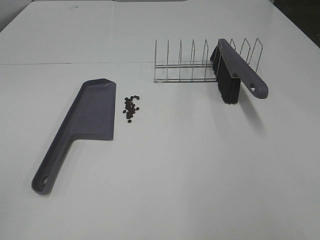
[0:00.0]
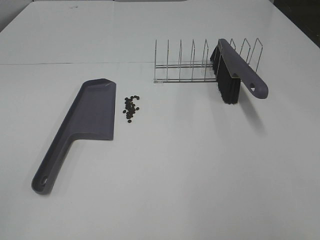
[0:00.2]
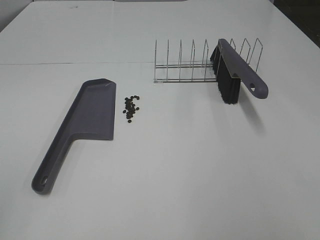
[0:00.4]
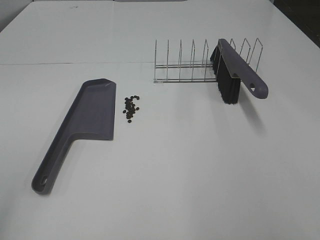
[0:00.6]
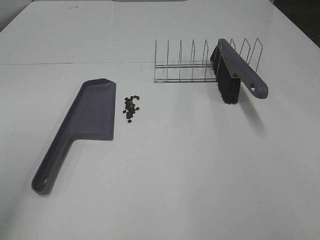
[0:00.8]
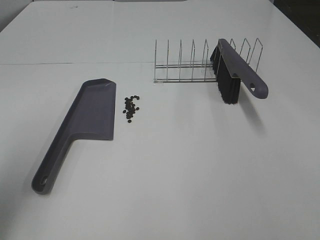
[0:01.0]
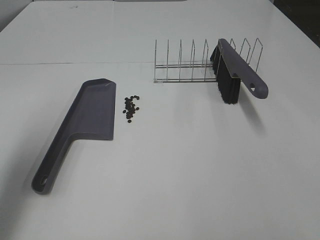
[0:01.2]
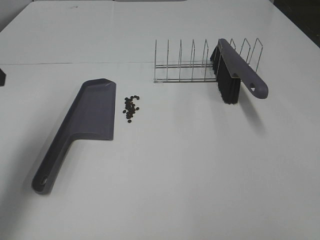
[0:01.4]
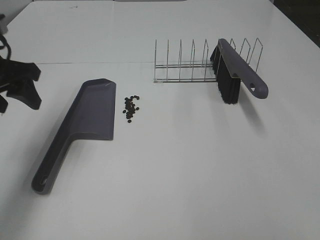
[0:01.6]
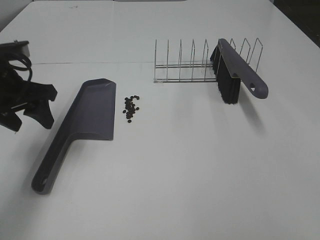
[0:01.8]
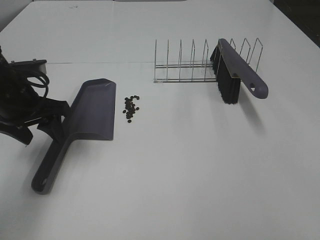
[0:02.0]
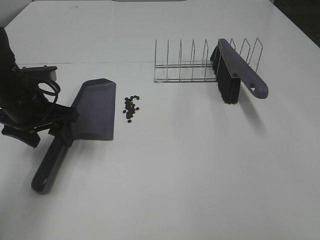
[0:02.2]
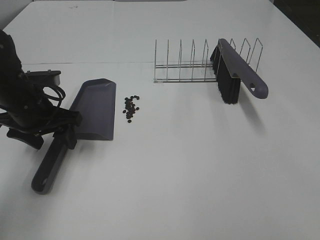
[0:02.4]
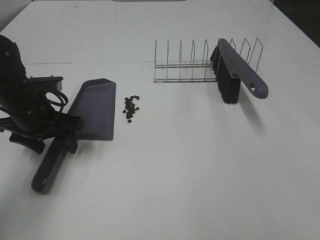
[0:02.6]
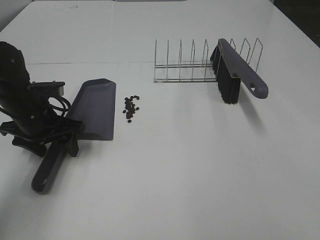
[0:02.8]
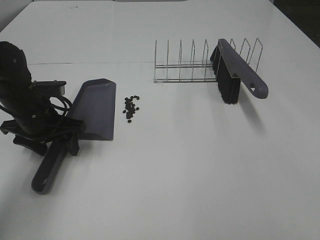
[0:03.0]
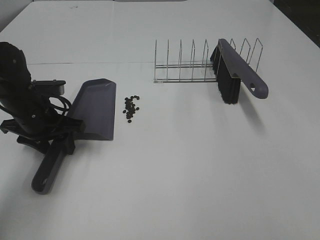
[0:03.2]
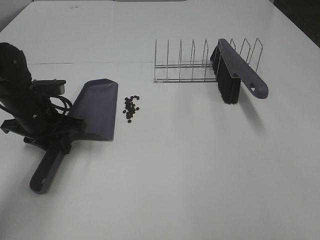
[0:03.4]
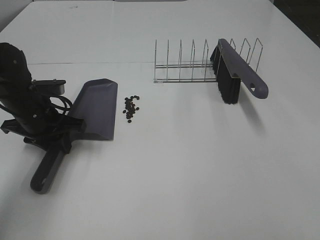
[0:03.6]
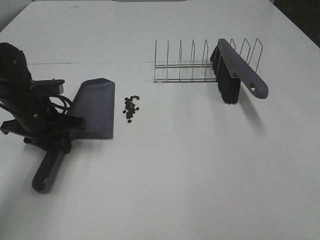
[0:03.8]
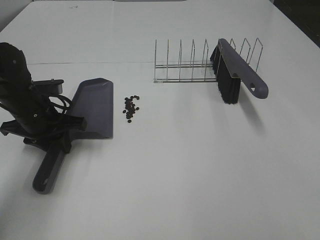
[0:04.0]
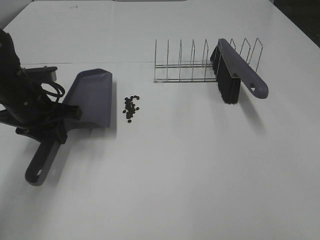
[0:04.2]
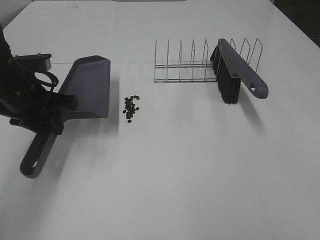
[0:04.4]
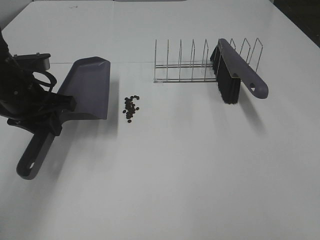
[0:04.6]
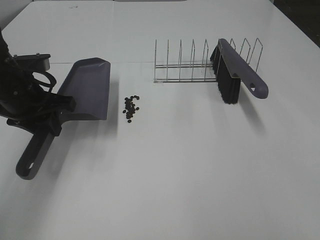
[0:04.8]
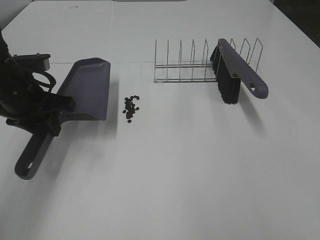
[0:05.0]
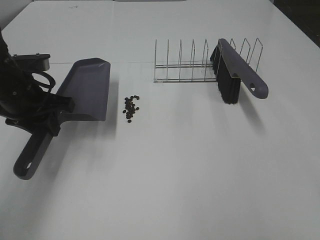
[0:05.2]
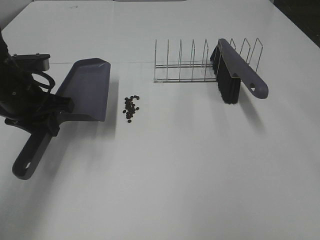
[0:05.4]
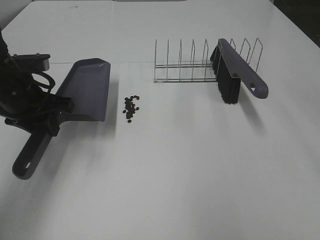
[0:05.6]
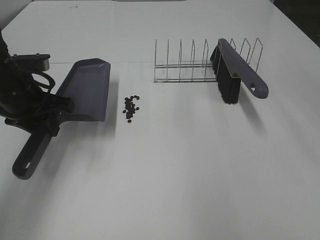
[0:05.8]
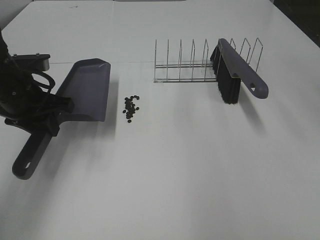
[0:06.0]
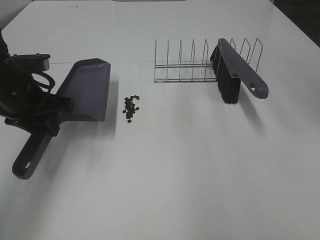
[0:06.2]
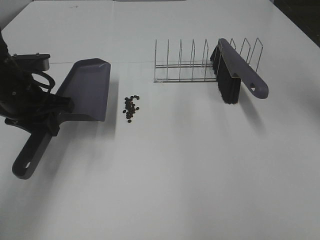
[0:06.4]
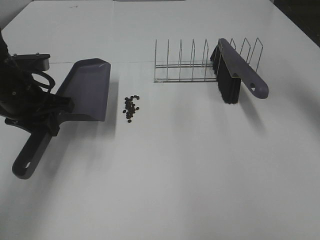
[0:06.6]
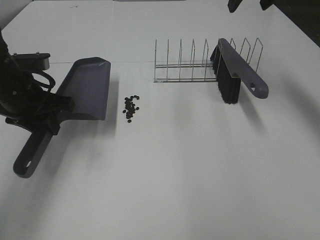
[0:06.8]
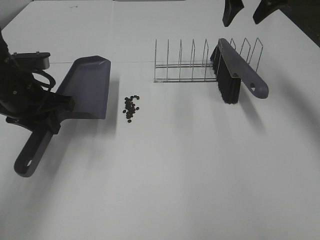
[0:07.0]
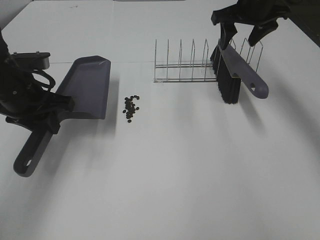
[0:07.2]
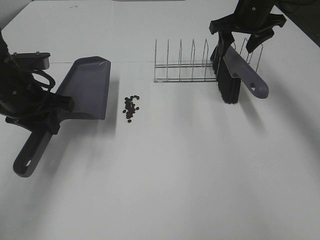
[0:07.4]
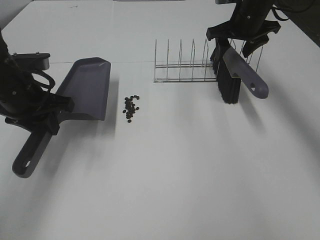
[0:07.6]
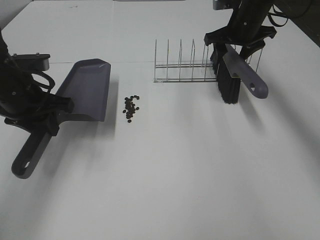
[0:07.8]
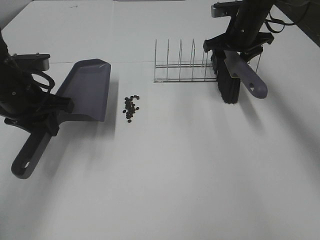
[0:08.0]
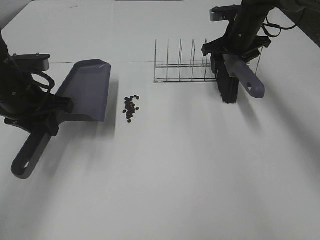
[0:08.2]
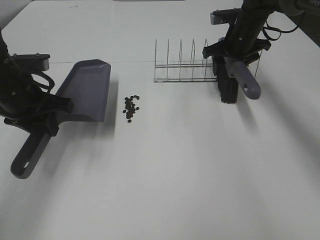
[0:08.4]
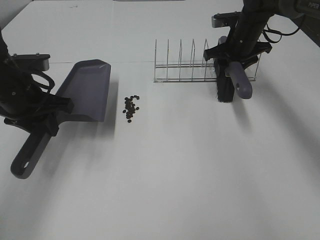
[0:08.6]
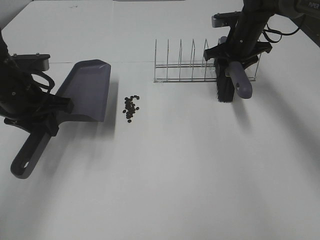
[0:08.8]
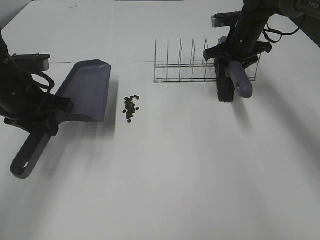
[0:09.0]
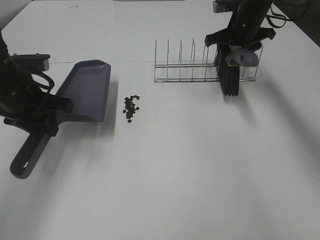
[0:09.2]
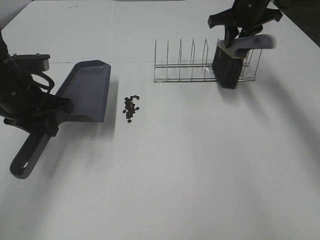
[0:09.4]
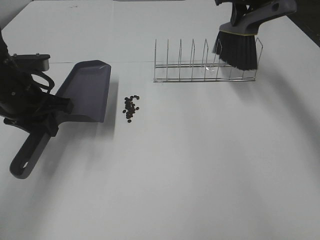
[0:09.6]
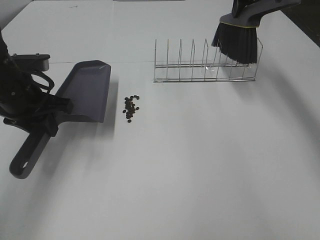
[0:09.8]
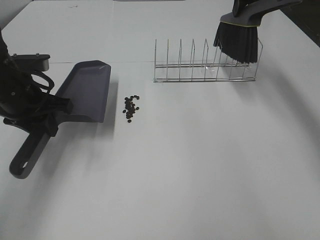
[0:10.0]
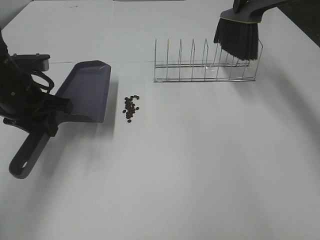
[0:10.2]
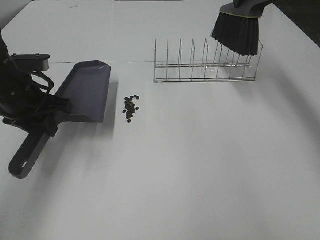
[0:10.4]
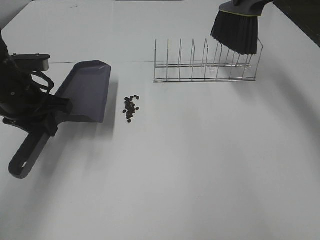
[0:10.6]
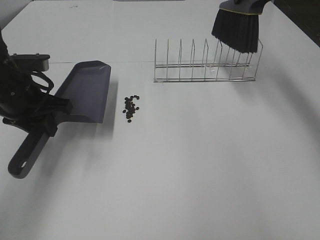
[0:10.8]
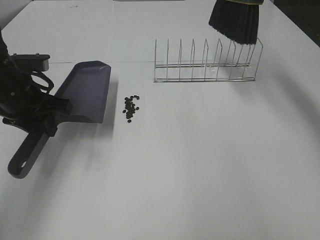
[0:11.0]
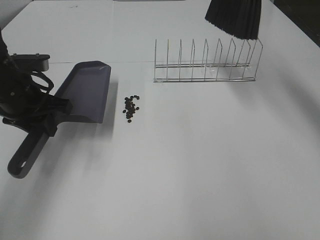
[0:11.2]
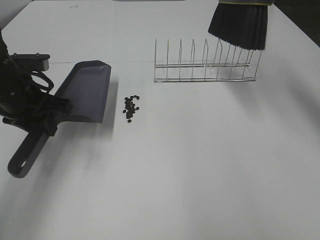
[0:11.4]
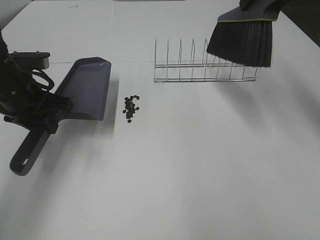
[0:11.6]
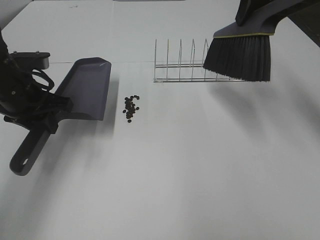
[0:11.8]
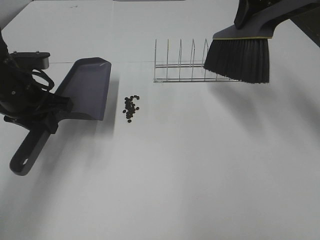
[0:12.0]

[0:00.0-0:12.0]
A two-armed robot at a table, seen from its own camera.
Task of the whole recording: Sweep Coffee Bean.
Step, 0:00.0 to 0:03.4: Left hand: grab the dustpan.
Step, 0:05.0 to 0:08.6: Right hand:grab the broom.
0:00.0 to 0:01.6: The left gripper travels forward by about 30 cm.
0:01.6 to 0:03.0: The left gripper travels downward by about 15 cm.
0:03.0 to 0:04.4: The left gripper moves upward, approximately 5 cm, and closes.
0:06.0 to 0:07.6: The right gripper shifts roughly 30 cm downward and forward.
0:07.6 to 0:09.0: The right gripper shifts about 5 cm downward.
0:09.0 to 0:10.4: The right gripper travels upward by about 15 cm, and closes up.
0:10.4 to 0:12.0: The right gripper shifts about 10 cm backward.

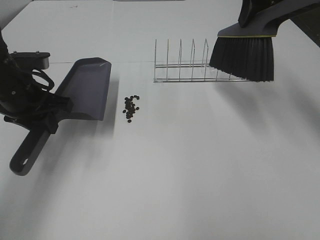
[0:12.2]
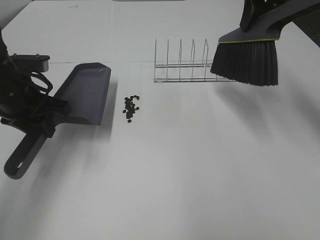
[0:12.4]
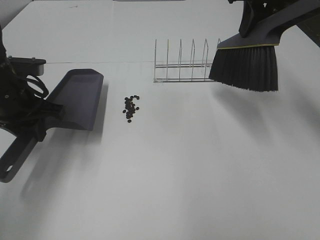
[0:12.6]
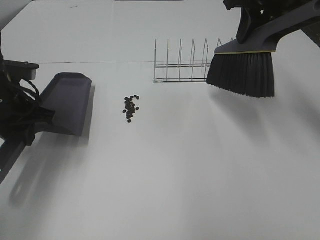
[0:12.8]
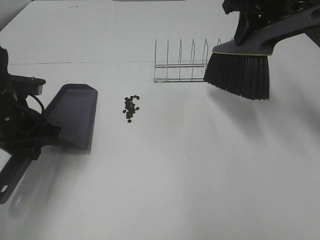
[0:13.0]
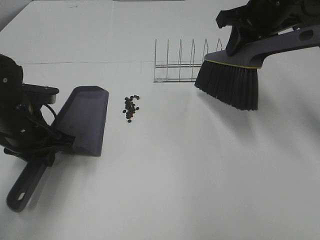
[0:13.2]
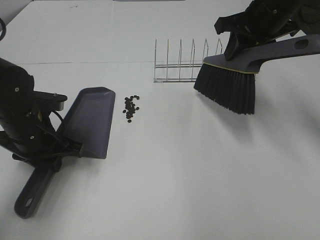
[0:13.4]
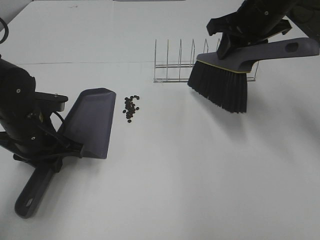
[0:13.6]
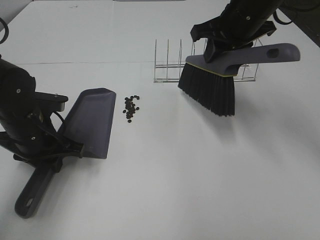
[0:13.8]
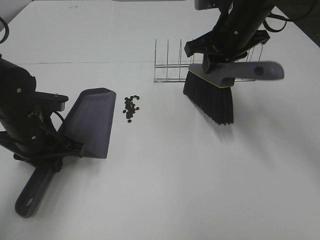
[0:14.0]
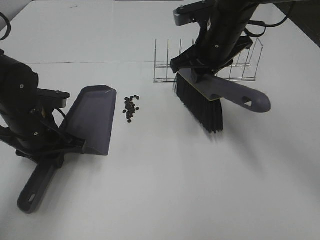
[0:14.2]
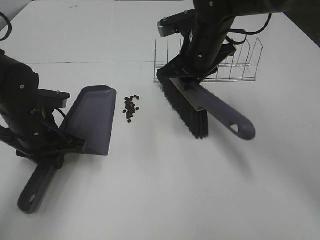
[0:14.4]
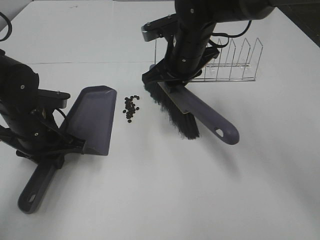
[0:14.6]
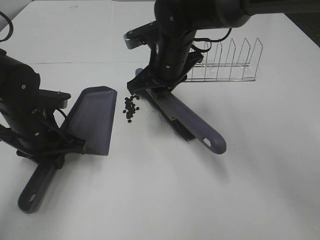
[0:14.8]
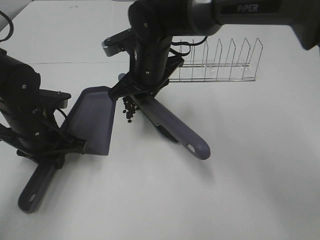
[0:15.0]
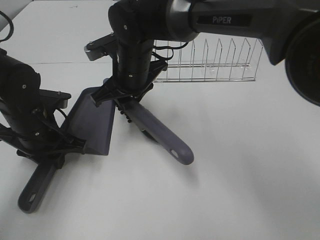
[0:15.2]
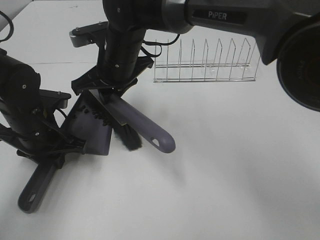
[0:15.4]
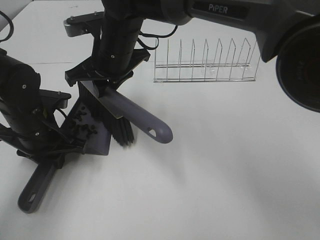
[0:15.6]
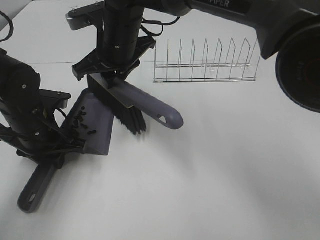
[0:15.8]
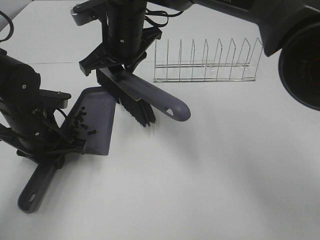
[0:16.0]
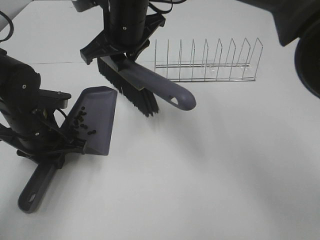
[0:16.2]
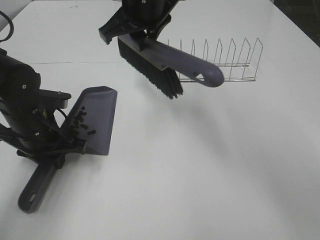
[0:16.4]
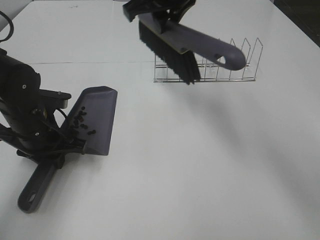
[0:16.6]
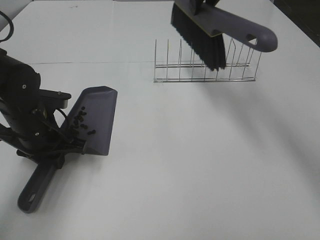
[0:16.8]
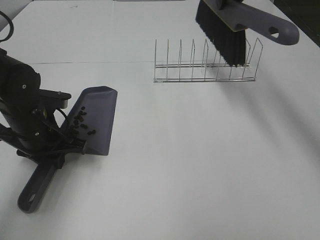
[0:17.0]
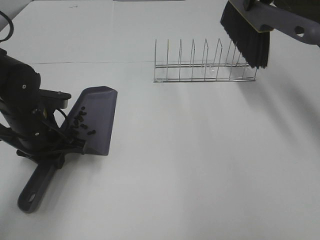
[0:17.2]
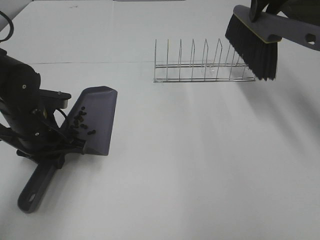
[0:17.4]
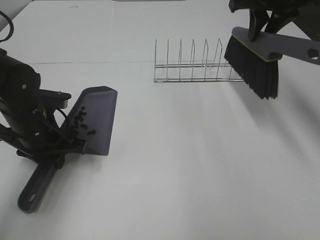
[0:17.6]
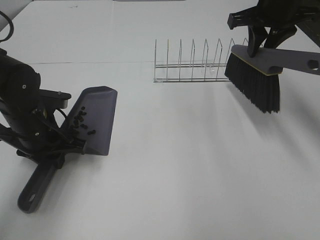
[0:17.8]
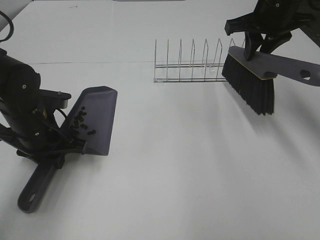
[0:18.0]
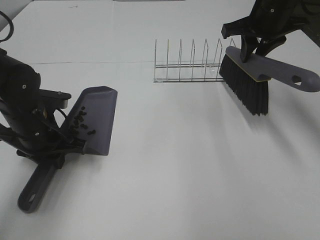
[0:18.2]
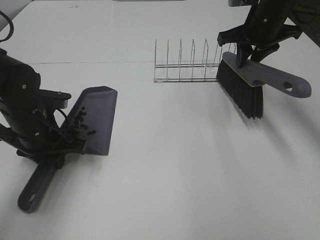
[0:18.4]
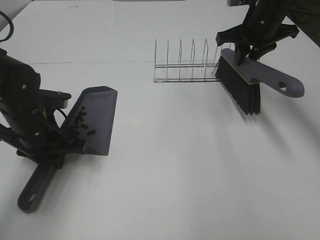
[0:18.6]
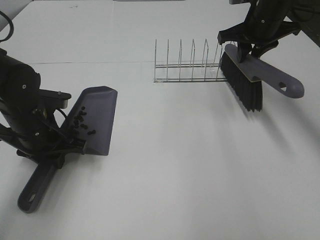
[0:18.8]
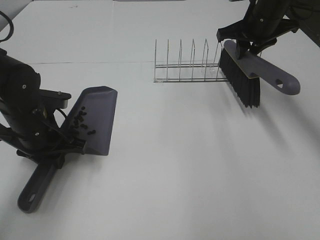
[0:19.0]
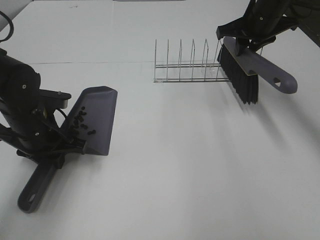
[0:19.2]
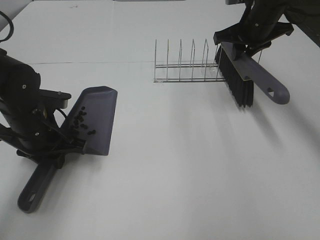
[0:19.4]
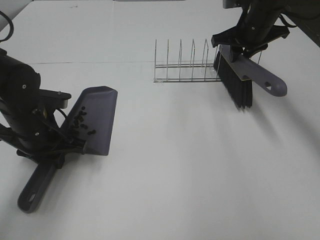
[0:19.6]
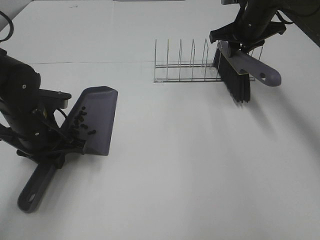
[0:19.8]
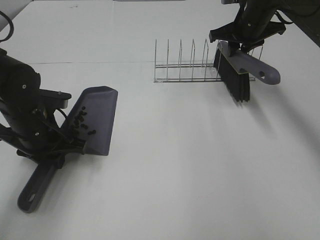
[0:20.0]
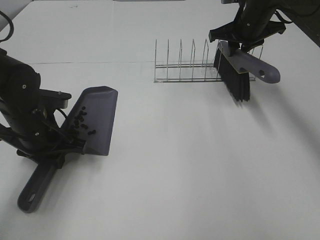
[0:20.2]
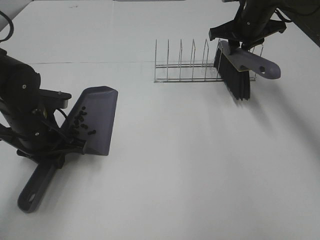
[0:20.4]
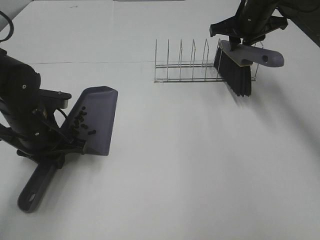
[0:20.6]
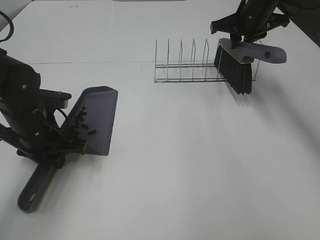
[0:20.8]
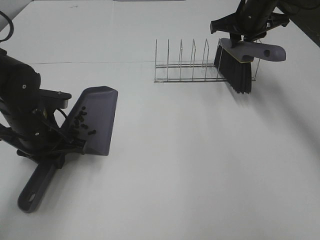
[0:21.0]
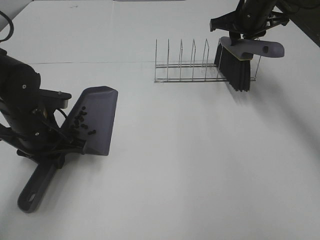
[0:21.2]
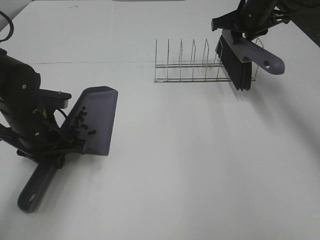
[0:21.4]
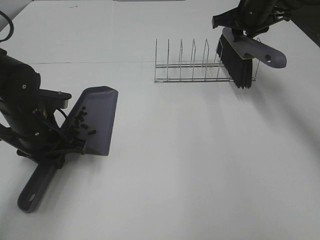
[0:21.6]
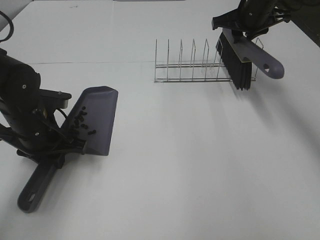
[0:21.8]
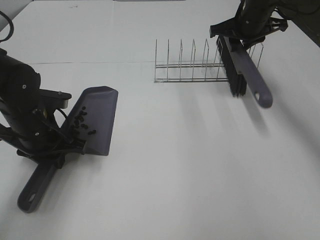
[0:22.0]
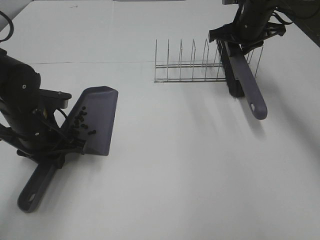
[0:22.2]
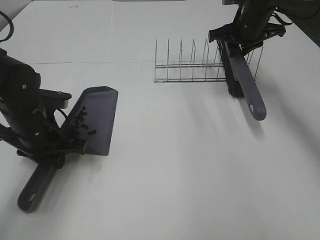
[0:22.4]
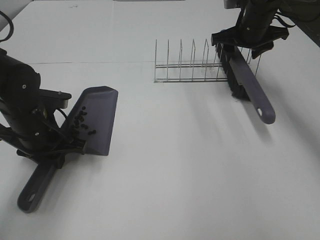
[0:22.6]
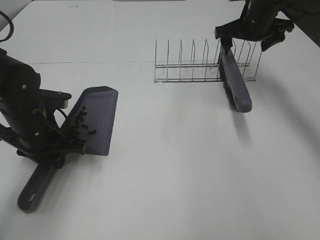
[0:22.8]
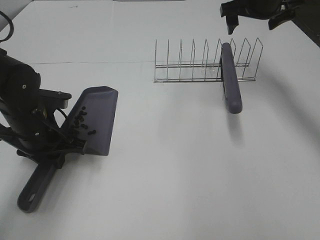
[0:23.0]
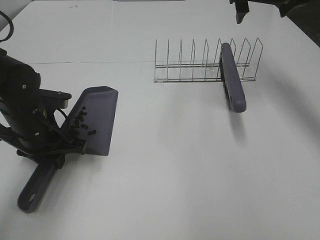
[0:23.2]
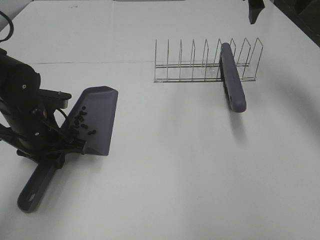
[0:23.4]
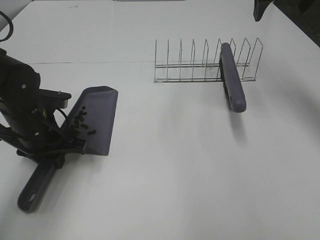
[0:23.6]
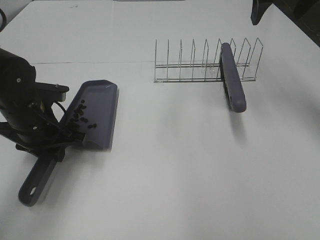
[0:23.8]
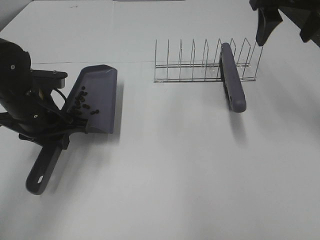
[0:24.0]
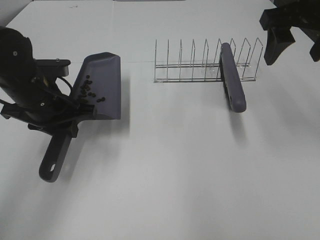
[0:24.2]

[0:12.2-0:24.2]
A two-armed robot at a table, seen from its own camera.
Task of the whole recording: Sweep Coffee Bean.
Step, 0:12.2 to 0:15.8: Right hand:sweep the coffee beans into the dustpan.
Step, 0:16.0 to 0:22.6: Right hand:place the broom on the rack.
0:12.2 to 0:13.8: The two grippers go roughly 5 cm downward.
0:13.8 to 0:15.2: The right gripper goes approximately 20 cm to the left and downward.
0:15.2 to 0:16.6: The right gripper shifts about 15 cm upward and to the right.
0:16.6 to 0:18.2: The right gripper travels to the right by some 20 cm.
0:18.2 to 0:19.8: The right gripper shifts roughly 5 cm forward.
0:19.8 to 0:21.2: The grippers move only a little.
0:21.2 to 0:22.6: The right gripper opens its fingers.
0:22.6 to 0:24.2: The right gripper heads backward and upward, covering roughly 20 cm. Meanwhile the left gripper moves approximately 5 cm.
